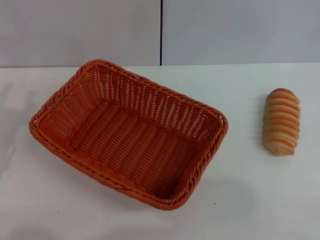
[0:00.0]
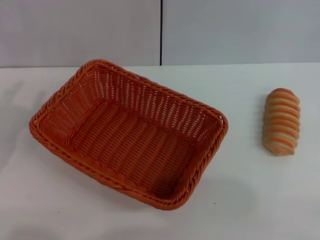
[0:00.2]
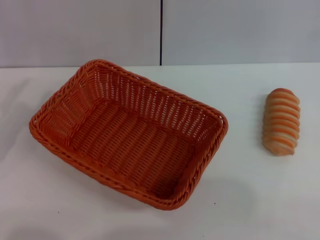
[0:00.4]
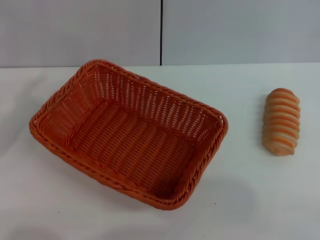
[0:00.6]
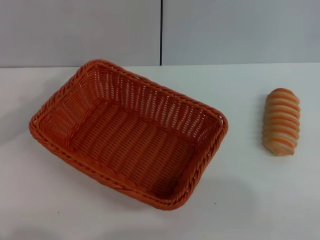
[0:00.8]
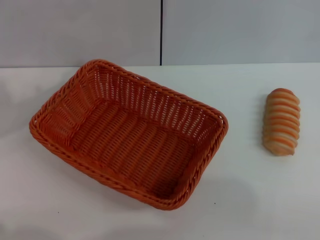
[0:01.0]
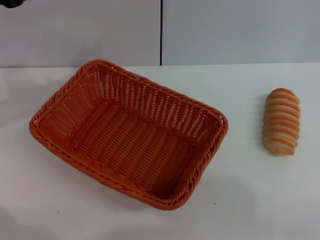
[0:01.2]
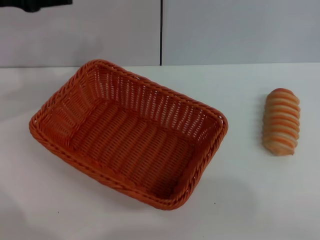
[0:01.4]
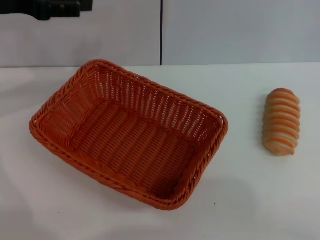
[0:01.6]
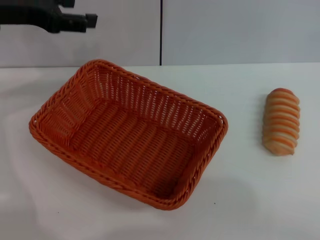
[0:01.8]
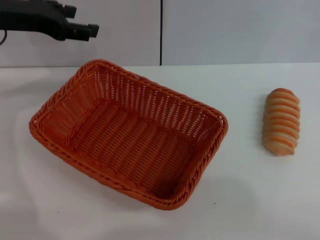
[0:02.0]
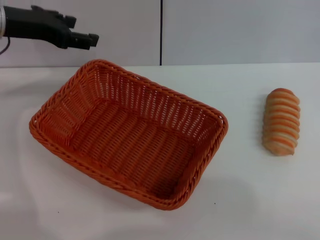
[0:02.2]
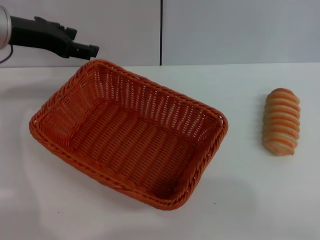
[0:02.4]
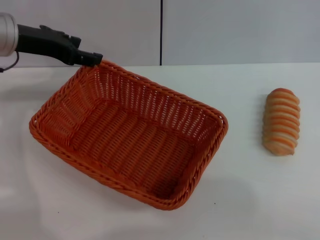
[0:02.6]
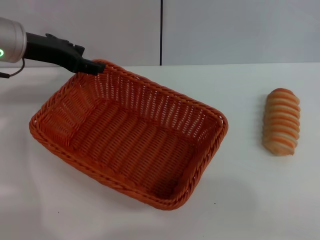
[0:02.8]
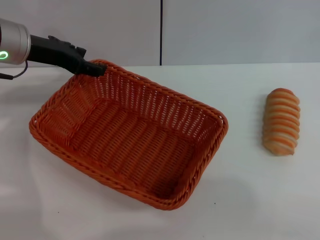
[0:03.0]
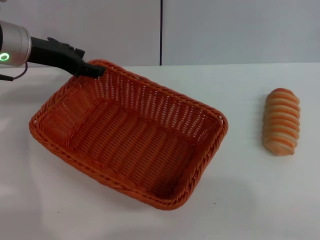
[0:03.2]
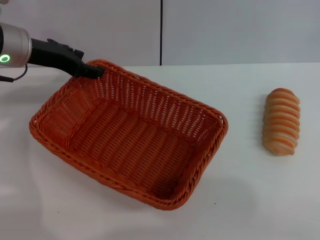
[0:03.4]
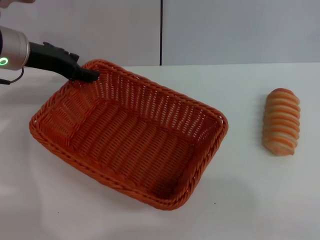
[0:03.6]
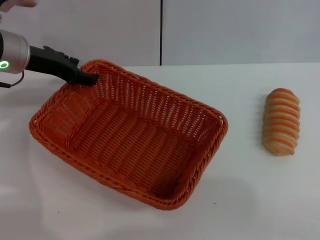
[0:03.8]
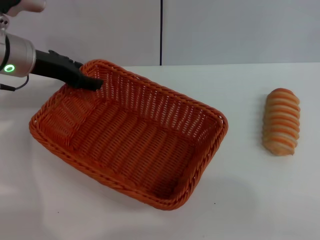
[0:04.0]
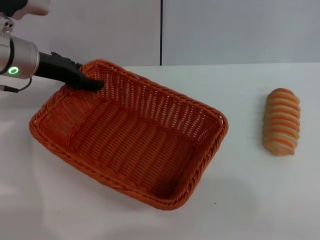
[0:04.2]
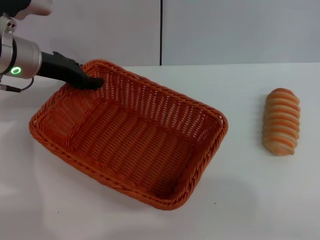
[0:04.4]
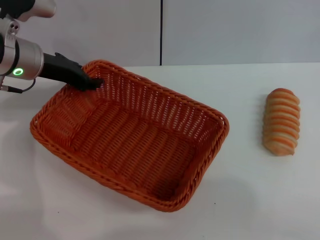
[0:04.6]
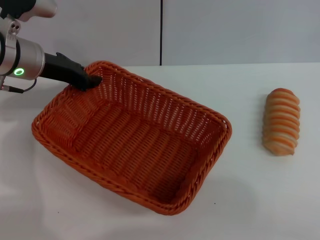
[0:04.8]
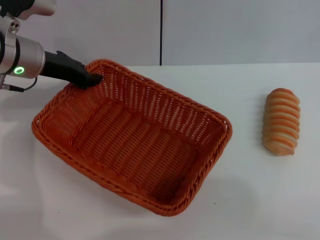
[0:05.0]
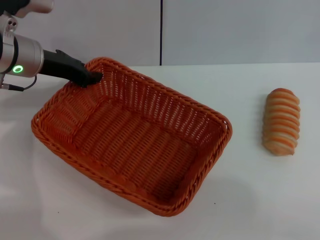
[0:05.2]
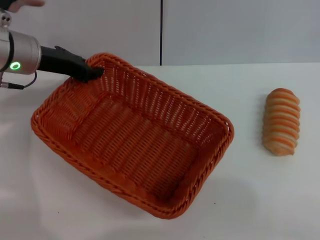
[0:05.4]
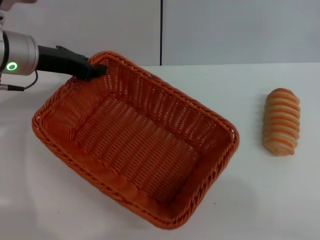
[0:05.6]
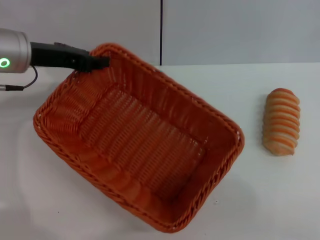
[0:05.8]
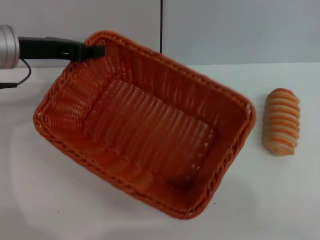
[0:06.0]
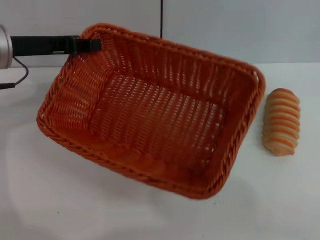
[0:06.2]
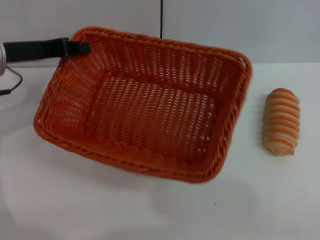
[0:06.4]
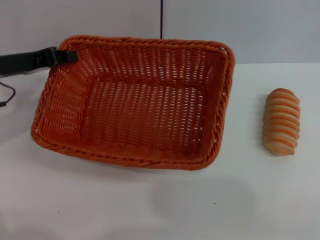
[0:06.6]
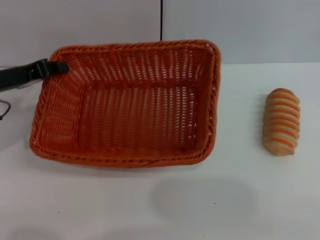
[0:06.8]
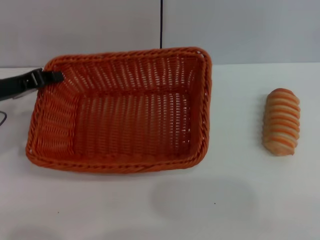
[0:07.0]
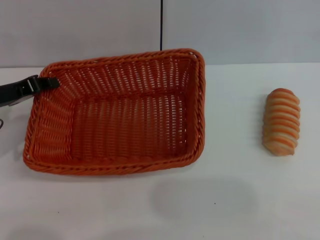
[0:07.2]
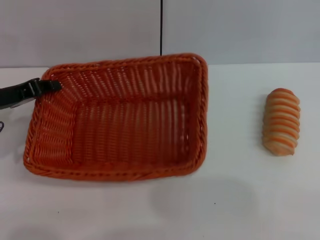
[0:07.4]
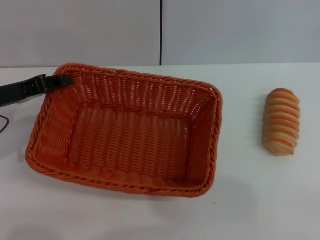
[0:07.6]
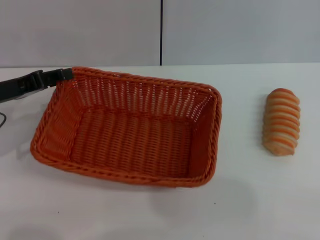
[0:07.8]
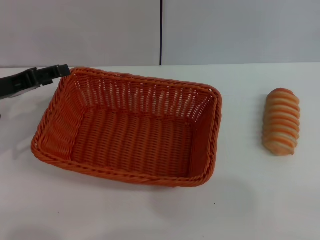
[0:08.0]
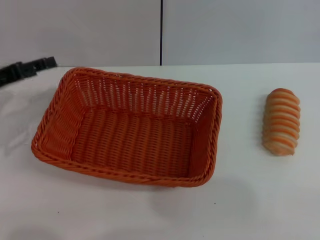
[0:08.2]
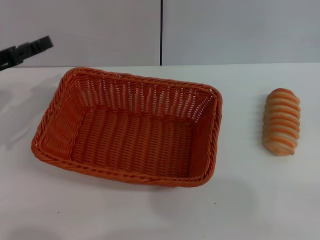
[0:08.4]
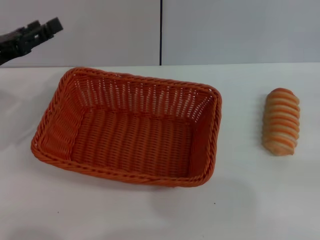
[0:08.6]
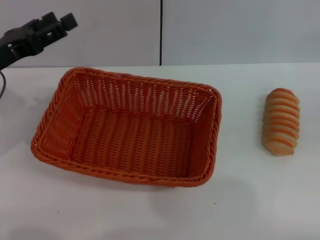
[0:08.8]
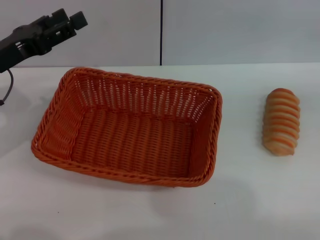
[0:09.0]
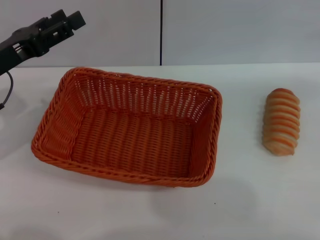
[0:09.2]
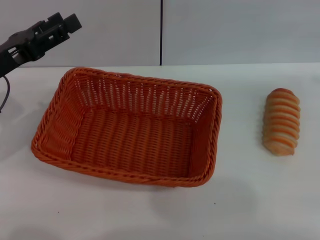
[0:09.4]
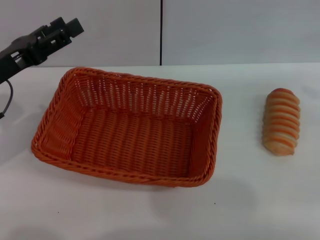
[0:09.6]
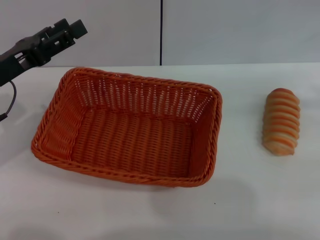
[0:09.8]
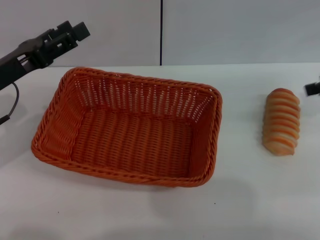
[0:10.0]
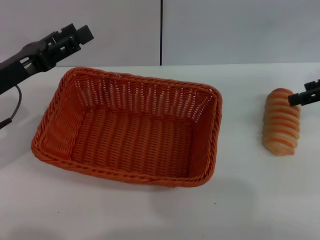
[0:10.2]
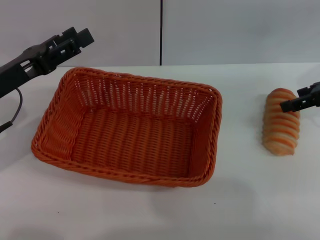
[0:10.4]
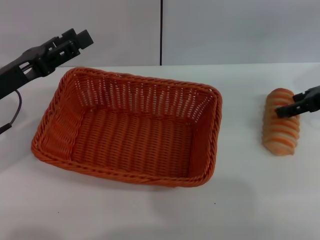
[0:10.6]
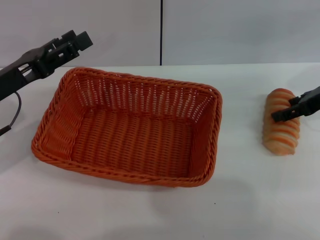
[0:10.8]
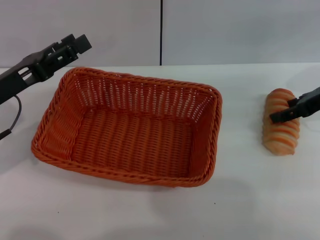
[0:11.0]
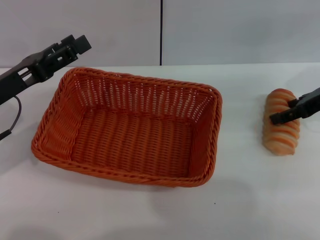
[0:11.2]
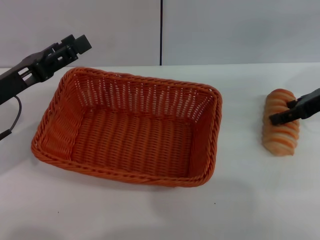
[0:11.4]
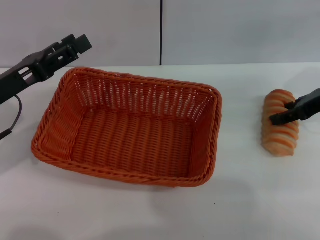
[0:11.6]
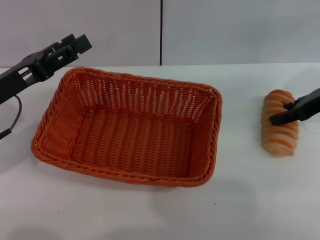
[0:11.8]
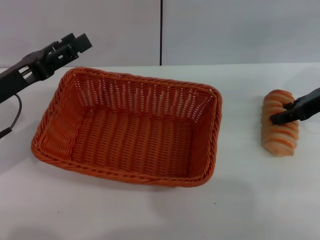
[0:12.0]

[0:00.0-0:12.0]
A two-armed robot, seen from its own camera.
Step, 0:00.0 to 0:06.0: Pick up the light basket with the left gripper.
Step, 0:06.2 to 0:08.6: Place the light basket in the center of view with the left gripper.
0:00.0 to 0:01.6: The left gripper goes roughly 20 cm upward and forward.
0:01.6 to 0:03.0: The left gripper is displaced downward by roughly 5 cm.
0:03.0 to 0:04.4: The grippers move only a little.
0:04.4 to 0:06.0: The left gripper closes.
0:06.0 to 0:07.6: The left gripper heads downward and backward, covering roughly 10 cm.
0:07.6 to 0:09.0: The right gripper goes some 20 cm upward. The left gripper opens its fingers.
0:09.0 to 0:10.4: The right gripper travels to the left, forward and downward by about 20 cm, and opens.
0:10.4 to 0:12.0: The right gripper closes up.

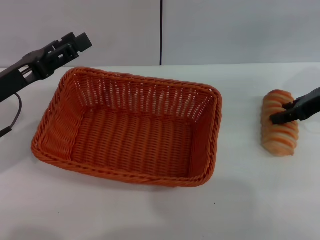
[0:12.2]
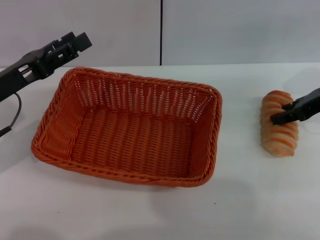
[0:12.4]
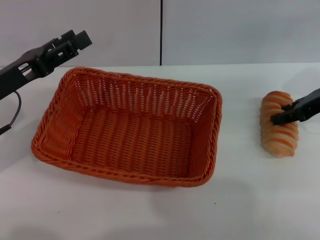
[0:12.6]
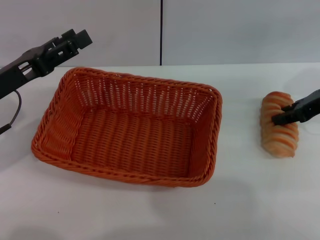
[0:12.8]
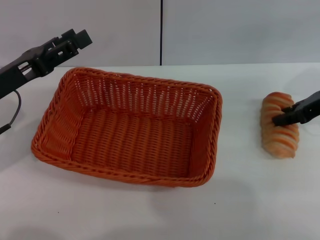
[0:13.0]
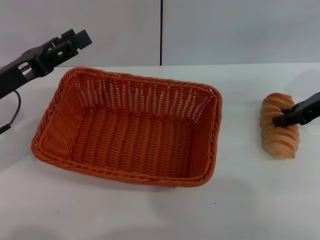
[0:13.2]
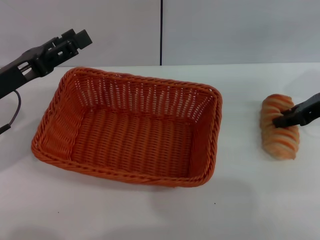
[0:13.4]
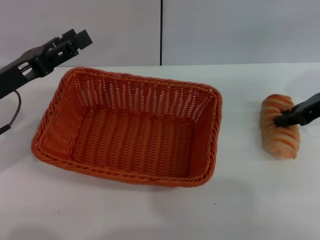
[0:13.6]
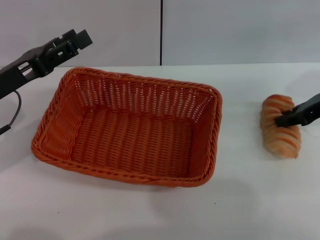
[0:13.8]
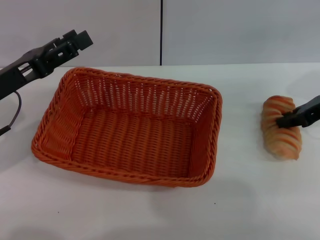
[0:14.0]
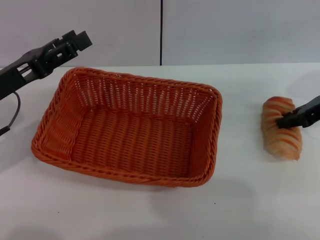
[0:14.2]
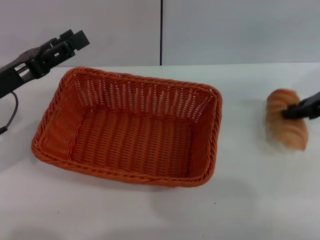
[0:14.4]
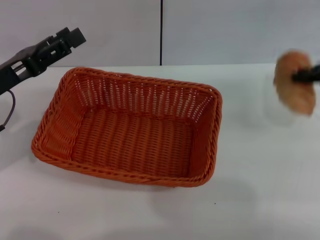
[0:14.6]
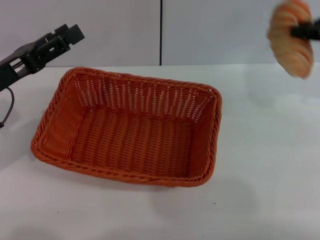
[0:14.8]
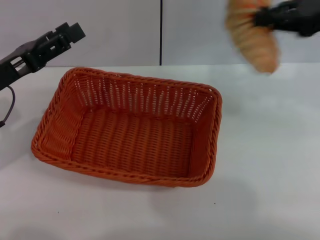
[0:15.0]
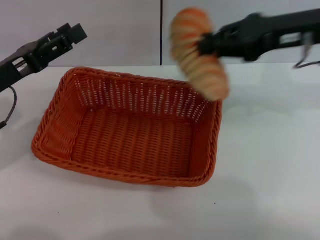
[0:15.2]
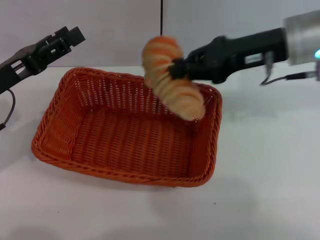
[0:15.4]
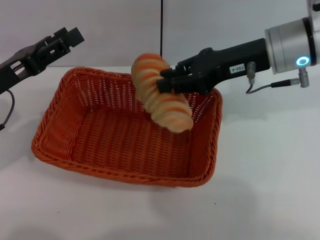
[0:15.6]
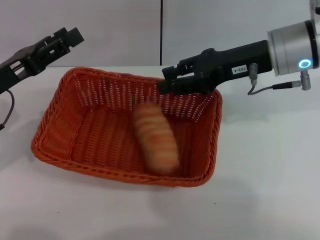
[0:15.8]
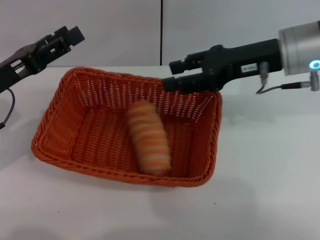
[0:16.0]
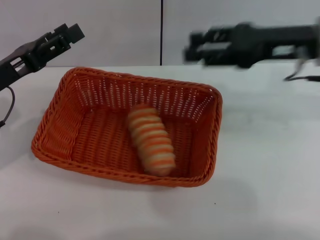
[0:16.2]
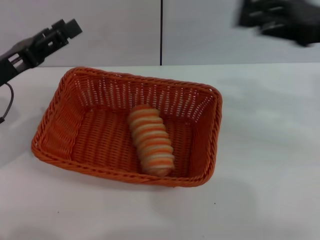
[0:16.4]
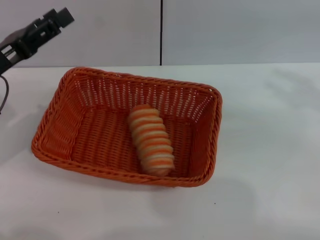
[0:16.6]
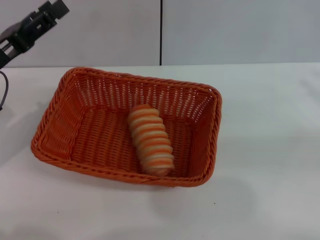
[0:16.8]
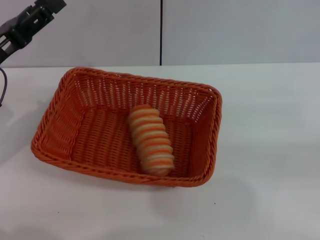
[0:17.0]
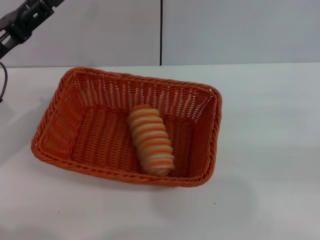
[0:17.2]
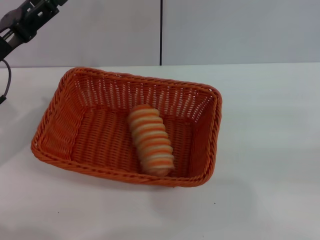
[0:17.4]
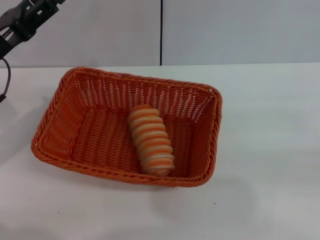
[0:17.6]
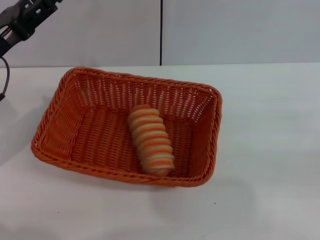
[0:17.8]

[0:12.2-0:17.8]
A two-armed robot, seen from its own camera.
Step, 0:12.2 to 0:14.4: Pick up the long bread with the right gripper.
Step, 0:14.6 to 0:16.2: Place the long bread into the light basket with the right gripper.
0:12.2 to 0:13.6: The right gripper closes up.
0:13.6 to 0:15.0: The right gripper travels upward by roughly 10 cm.
0:15.0 to 0:16.4: The right gripper goes to the left and returns, approximately 10 cm each way, and opens its fingers.
0:16.4 to 0:17.8: The right gripper is displaced to the right, backward and downward by about 20 cm.

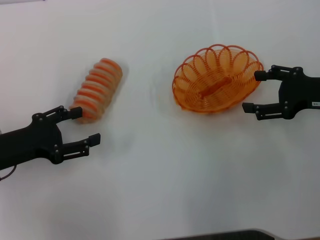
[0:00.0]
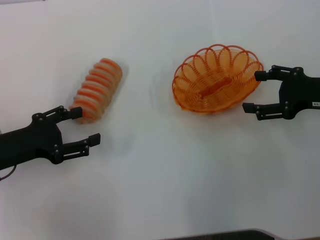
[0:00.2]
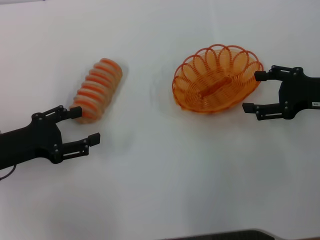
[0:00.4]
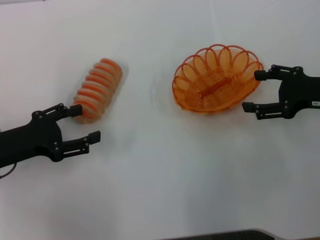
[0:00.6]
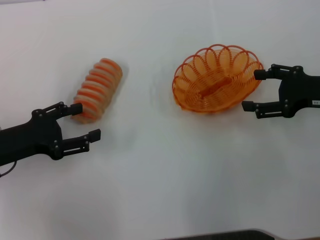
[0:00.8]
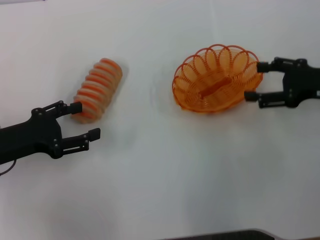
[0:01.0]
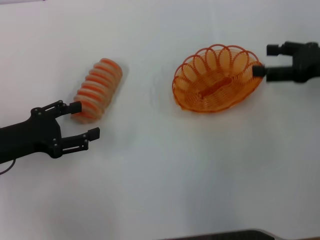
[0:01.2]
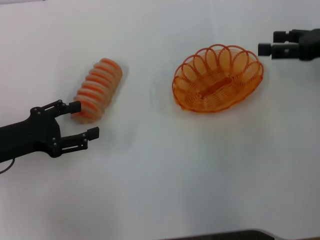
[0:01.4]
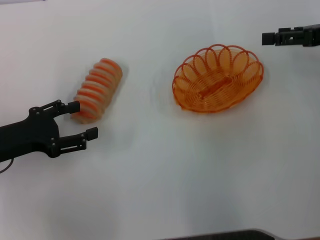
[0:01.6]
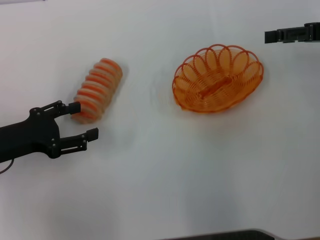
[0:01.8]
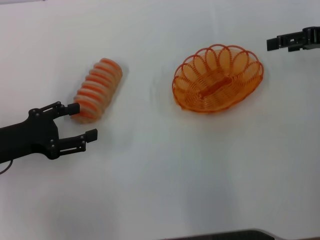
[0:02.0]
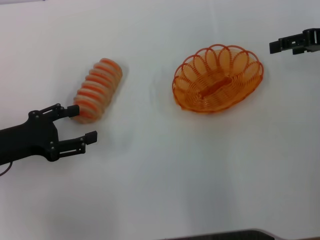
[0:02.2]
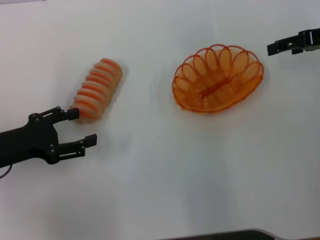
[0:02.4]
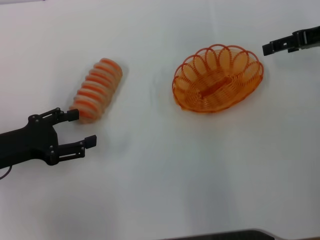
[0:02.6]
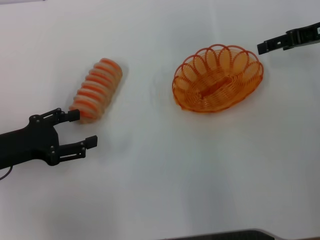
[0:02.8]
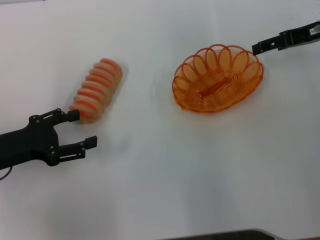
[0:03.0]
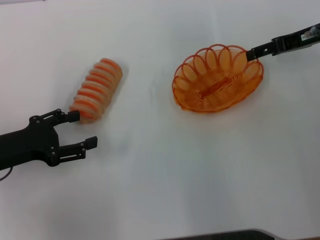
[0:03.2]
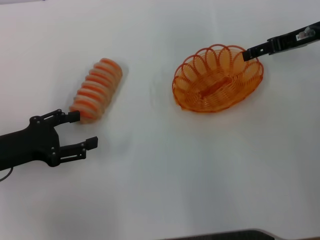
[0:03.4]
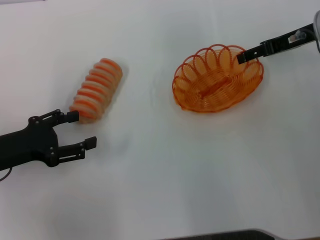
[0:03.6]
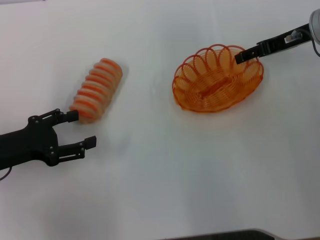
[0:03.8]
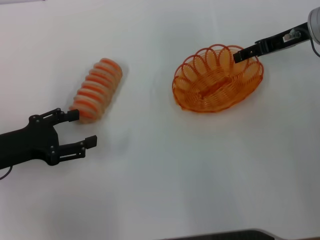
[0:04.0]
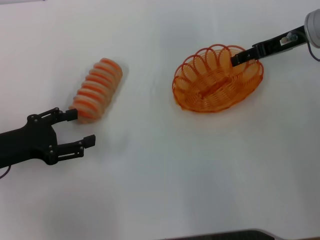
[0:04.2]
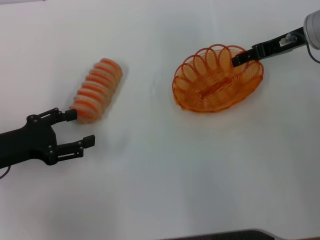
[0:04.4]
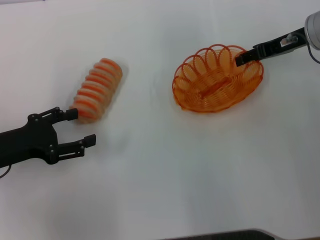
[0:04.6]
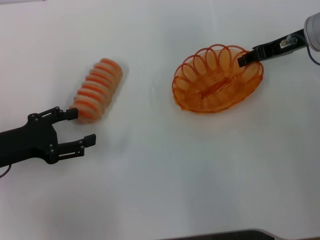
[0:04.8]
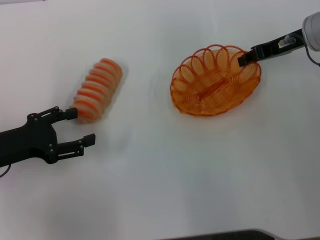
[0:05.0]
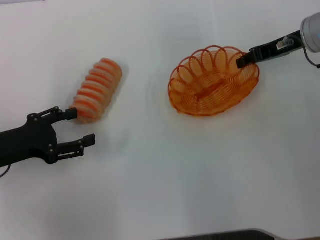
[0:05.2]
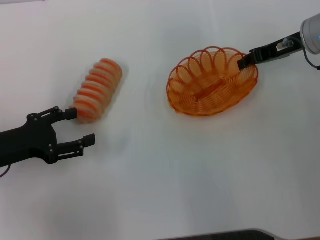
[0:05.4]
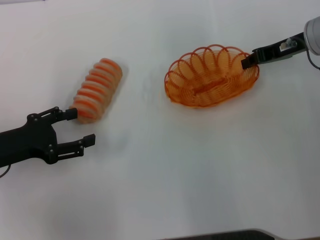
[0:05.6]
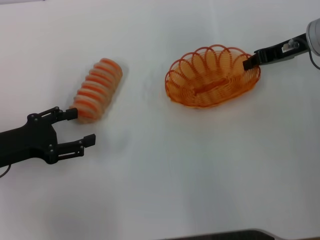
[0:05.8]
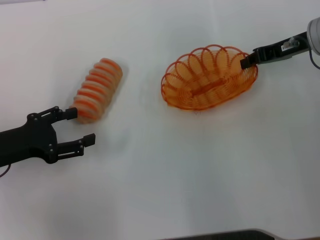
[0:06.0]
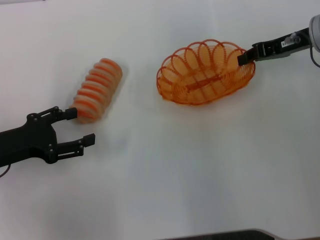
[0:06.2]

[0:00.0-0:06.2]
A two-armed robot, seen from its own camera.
0:00.0 to 0:01.6: The right gripper is displaced upward by about 5 cm.
0:01.6 to 0:03.2: The right gripper is displaced forward by approximately 5 cm.
0:03.2 to 0:04.6: The grippers stay close to where they were, moving slightly.
0:04.6 to 0:06.2: The right gripper closes.
